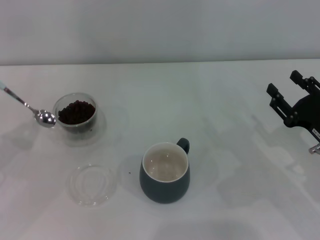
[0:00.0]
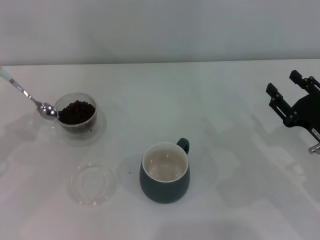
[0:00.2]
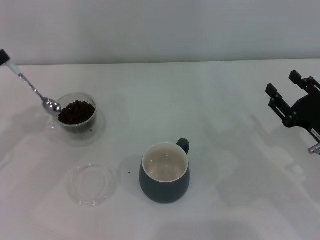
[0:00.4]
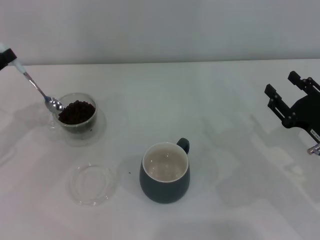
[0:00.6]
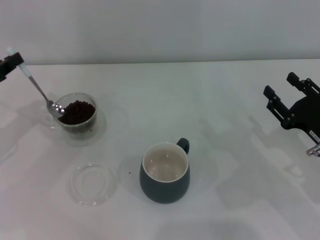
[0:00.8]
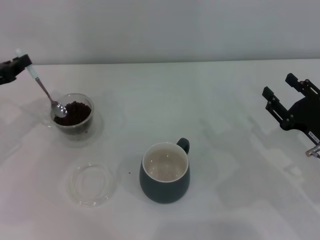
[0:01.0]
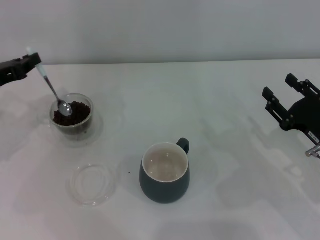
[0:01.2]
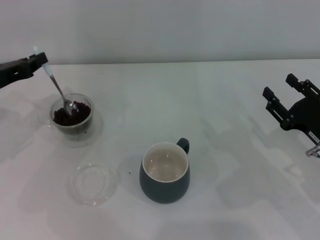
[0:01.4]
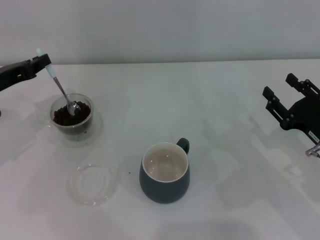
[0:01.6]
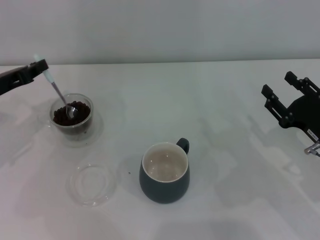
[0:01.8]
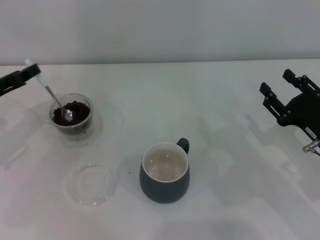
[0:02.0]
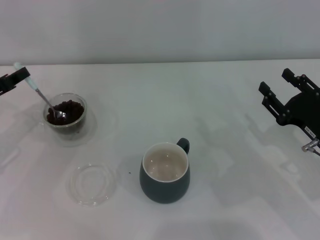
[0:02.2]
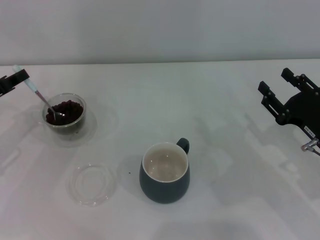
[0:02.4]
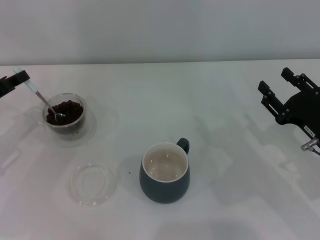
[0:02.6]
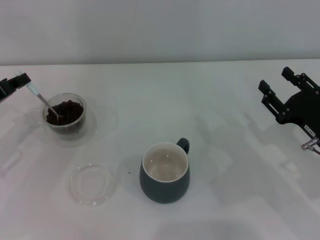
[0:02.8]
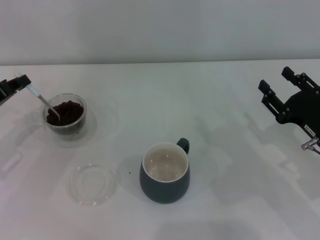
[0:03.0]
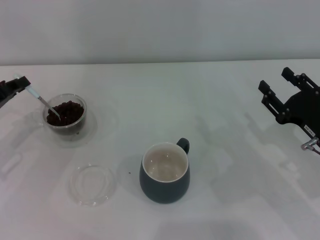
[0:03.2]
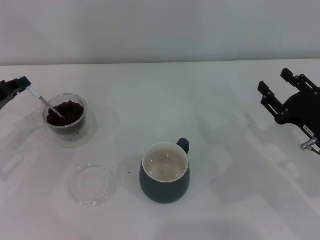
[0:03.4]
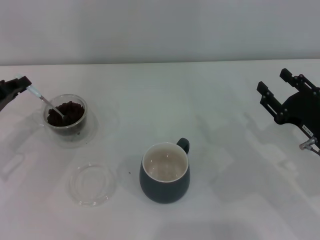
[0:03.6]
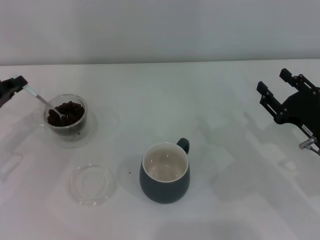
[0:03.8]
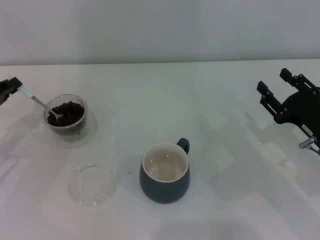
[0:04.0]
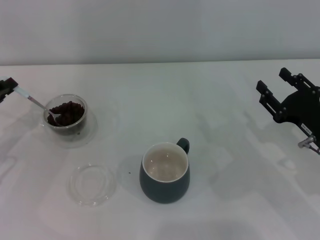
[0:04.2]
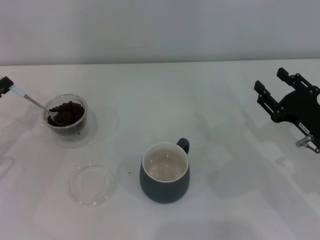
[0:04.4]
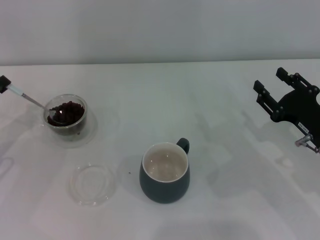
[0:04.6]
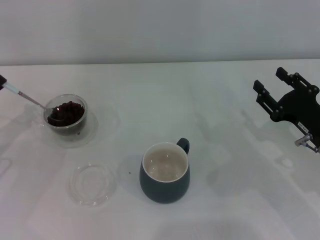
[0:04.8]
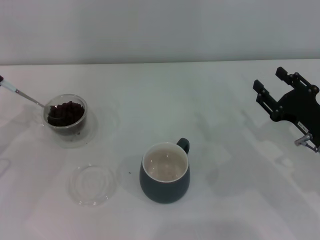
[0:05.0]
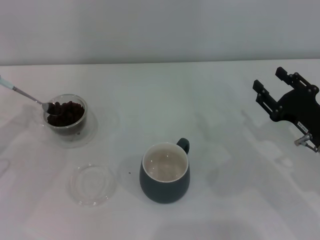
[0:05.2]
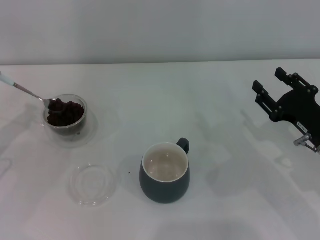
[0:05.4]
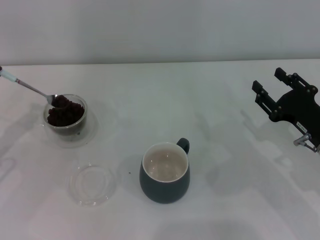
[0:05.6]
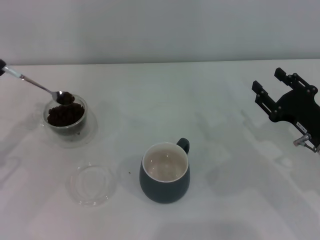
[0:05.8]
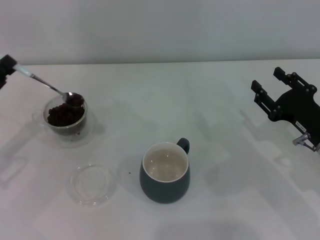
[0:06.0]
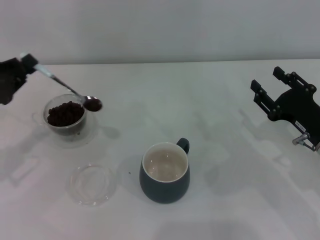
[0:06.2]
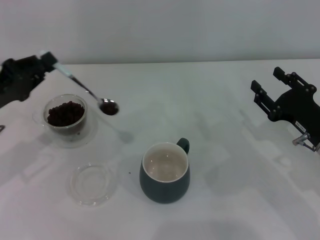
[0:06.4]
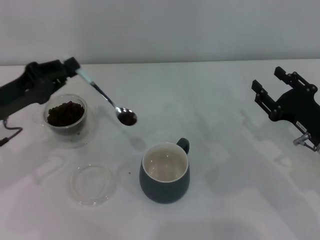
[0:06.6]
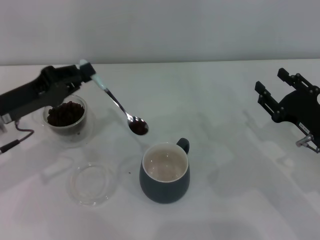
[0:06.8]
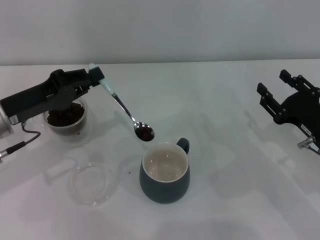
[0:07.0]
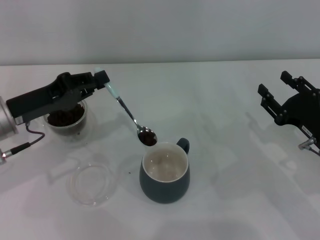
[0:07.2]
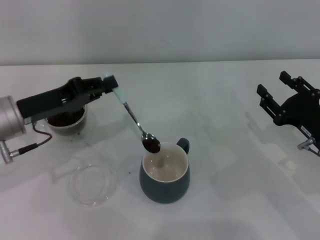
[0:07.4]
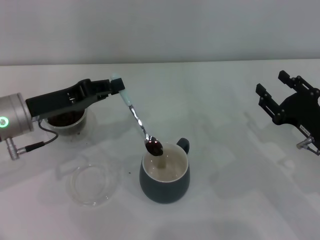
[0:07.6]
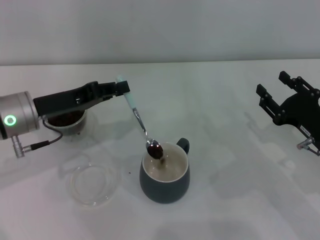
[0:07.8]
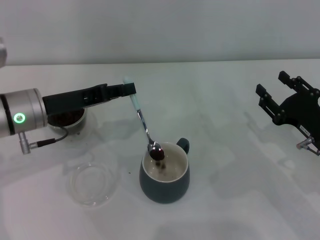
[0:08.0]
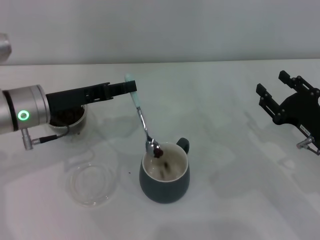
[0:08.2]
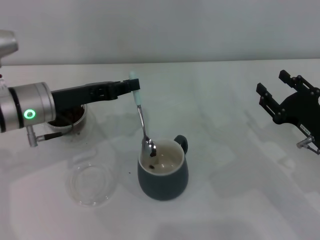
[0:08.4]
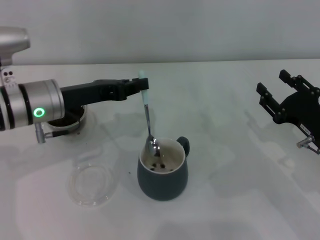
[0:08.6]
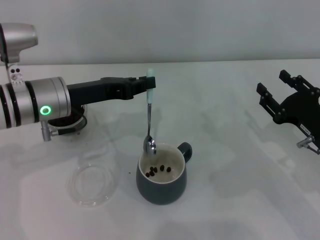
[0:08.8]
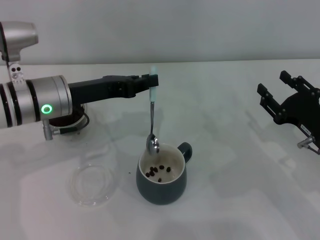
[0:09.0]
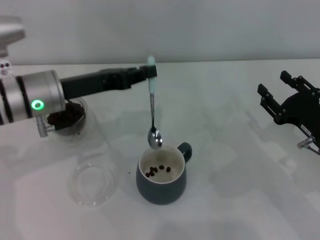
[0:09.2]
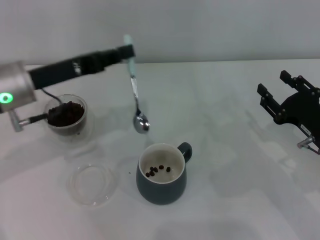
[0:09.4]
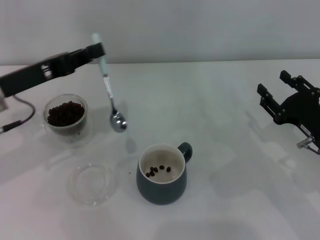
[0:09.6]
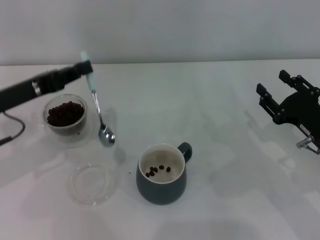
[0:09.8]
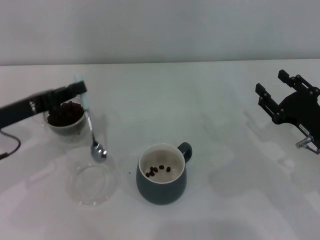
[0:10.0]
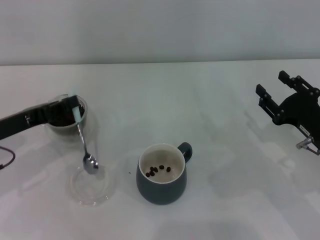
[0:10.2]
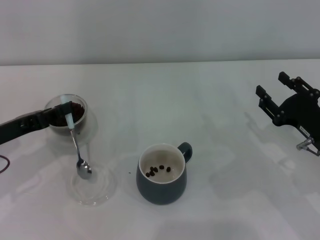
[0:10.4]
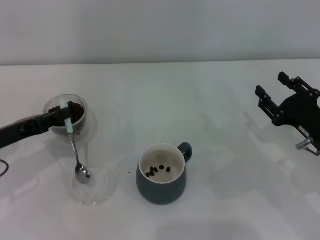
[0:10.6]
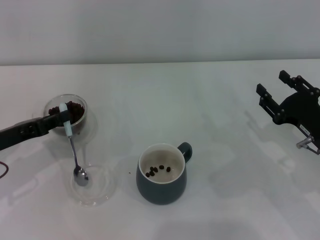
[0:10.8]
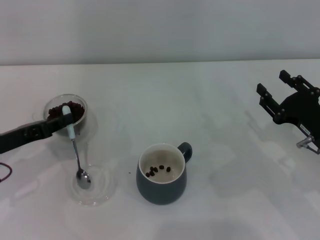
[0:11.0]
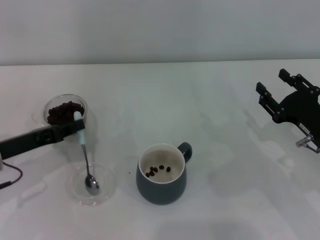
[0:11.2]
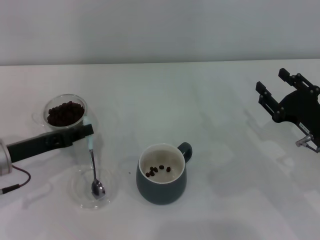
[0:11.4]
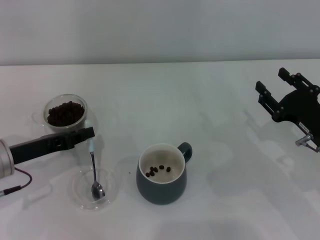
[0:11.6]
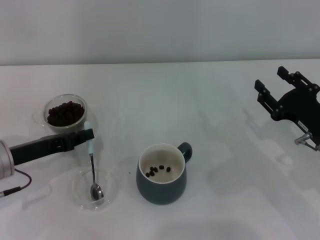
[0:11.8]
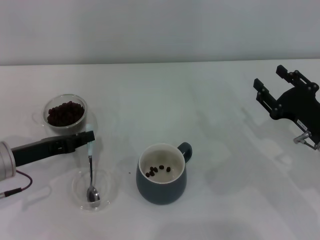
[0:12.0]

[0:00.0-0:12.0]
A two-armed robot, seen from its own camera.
Task of the whole recording: Use a blue spoon to take out the coffee beans from the glass and pour them into the gray cup.
0:00.0 to 0:01.6: The left gripper heads forward and to the right, covering approximately 10 cm.
0:03.0 to 0:04.4: There are only small adjustments of the grippers.
0:04.4 to 0:06.0: The grippers stay close to where they were, moving slightly.
0:06.0 to 0:07.6: The left gripper heads to the right, covering some 10 cm.
0:07.6 to 0:09.0: The left gripper goes about 5 cm to the right.
0:09.0 to 0:10.4: The left gripper goes about 15 cm to the left and backward.
0:10.4 to 0:12.0: The grippers stay close to where they were, moving slightly.

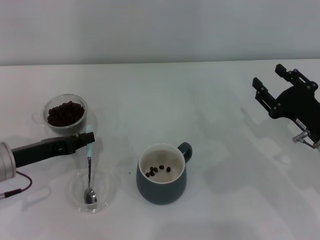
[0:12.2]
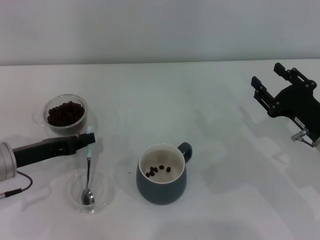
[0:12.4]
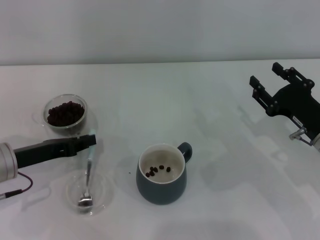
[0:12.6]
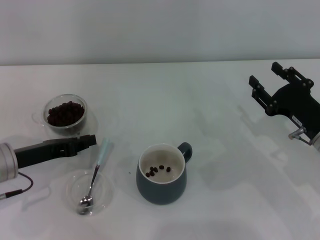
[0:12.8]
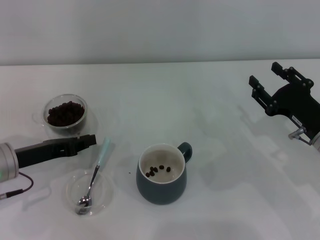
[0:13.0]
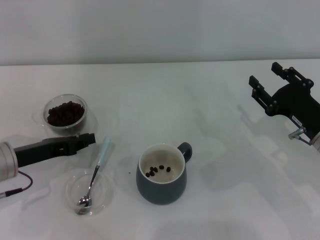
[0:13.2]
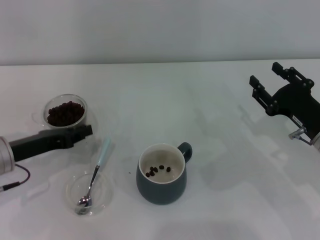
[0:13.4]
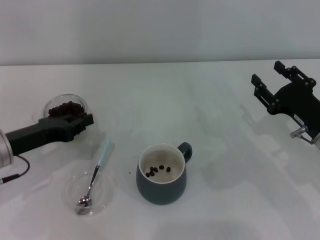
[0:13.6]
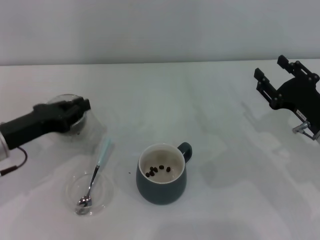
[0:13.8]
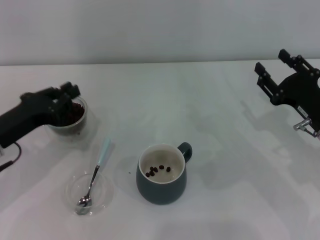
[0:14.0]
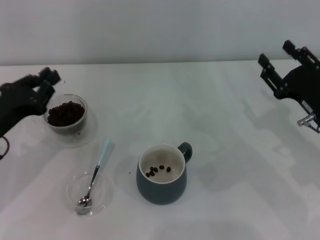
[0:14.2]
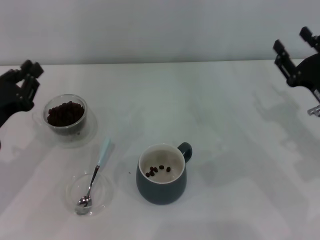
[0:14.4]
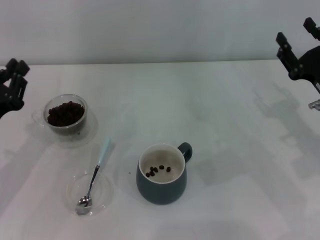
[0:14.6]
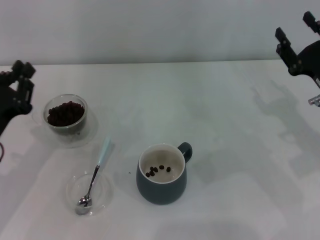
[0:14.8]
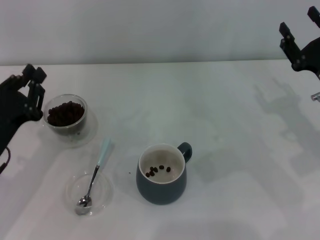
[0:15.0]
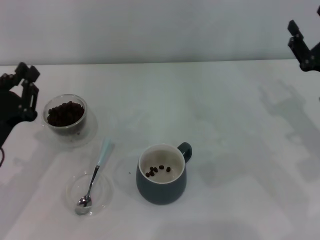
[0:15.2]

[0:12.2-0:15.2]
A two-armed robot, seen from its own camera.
Task of the whole recording: Use a blue spoon to take out the coffee beans from the glass and pour them into the gray cup.
0:13.8 to 0:15.2: The left gripper travels backward by about 5 cm.
